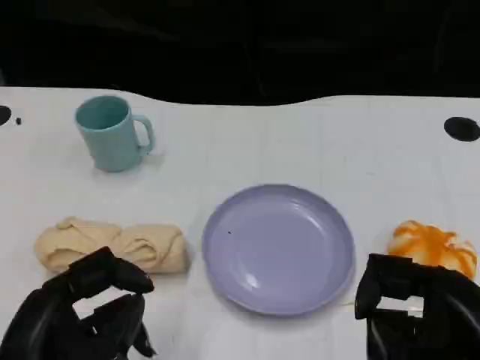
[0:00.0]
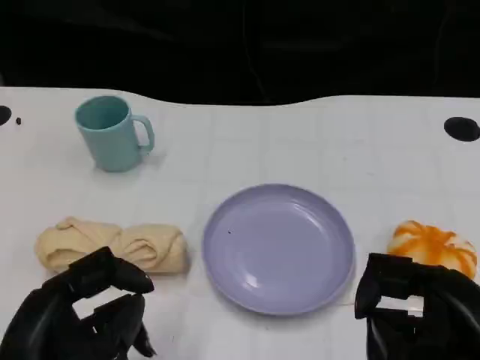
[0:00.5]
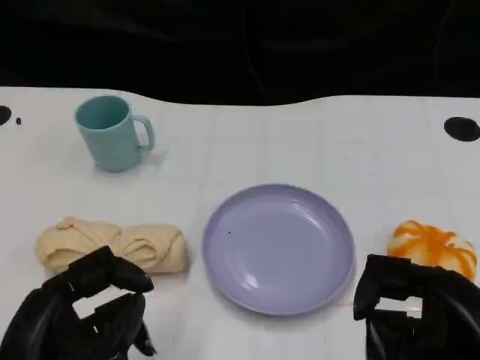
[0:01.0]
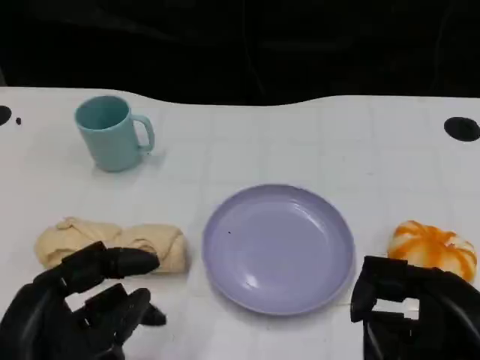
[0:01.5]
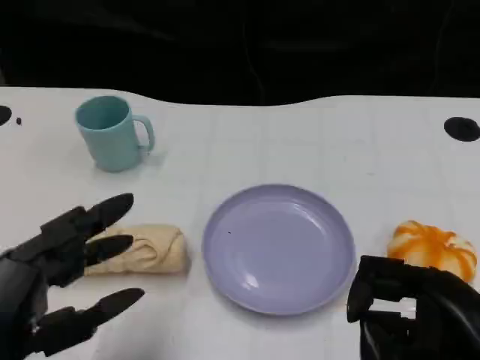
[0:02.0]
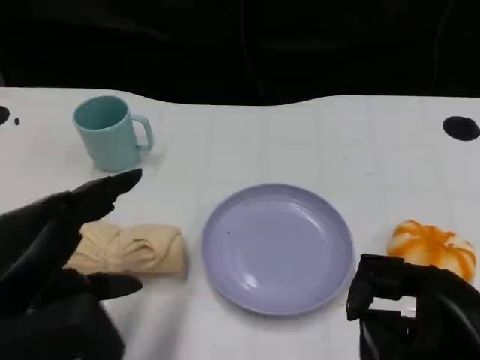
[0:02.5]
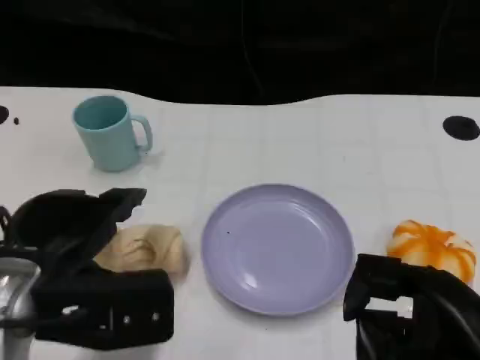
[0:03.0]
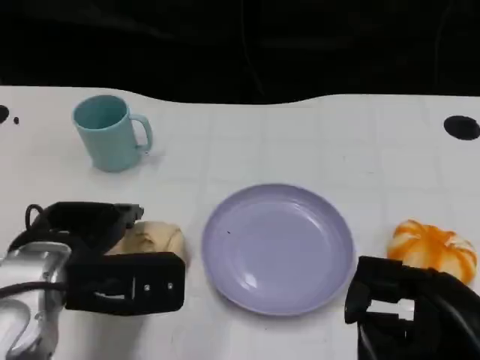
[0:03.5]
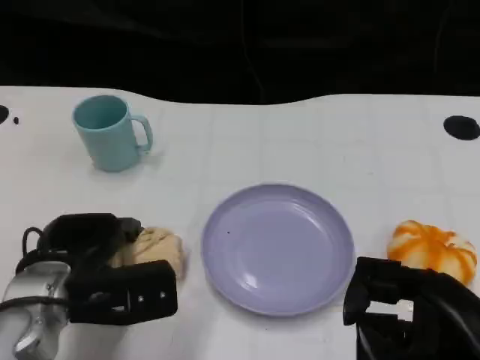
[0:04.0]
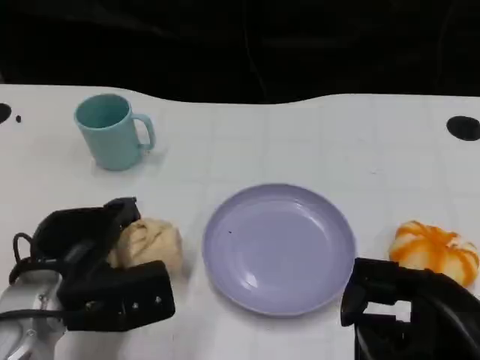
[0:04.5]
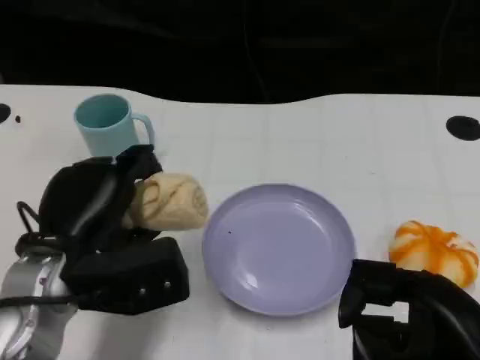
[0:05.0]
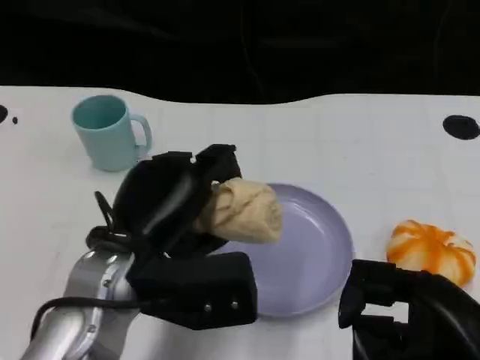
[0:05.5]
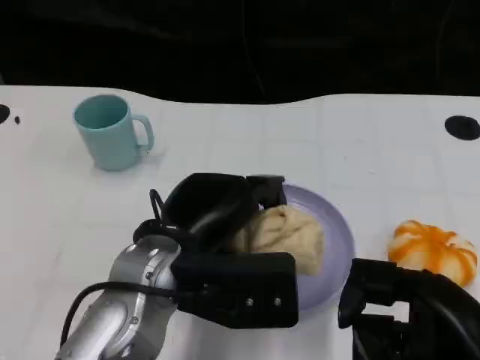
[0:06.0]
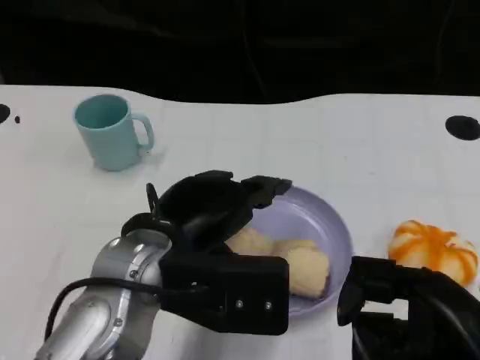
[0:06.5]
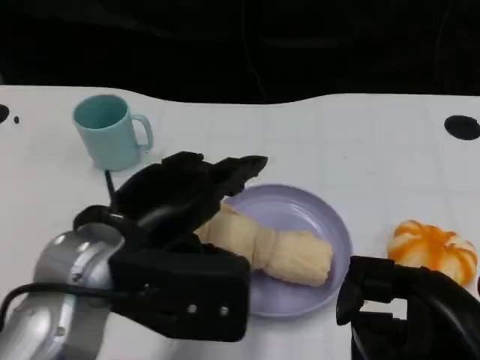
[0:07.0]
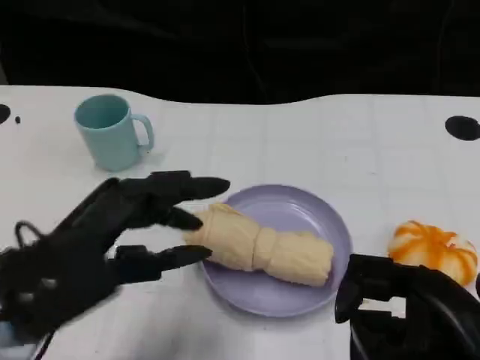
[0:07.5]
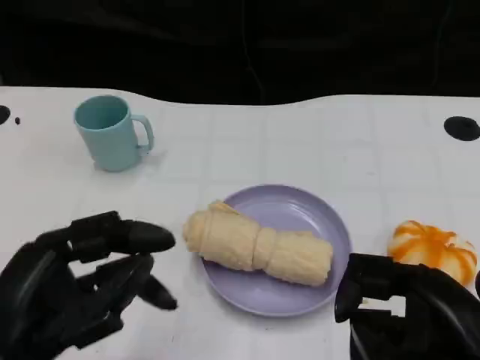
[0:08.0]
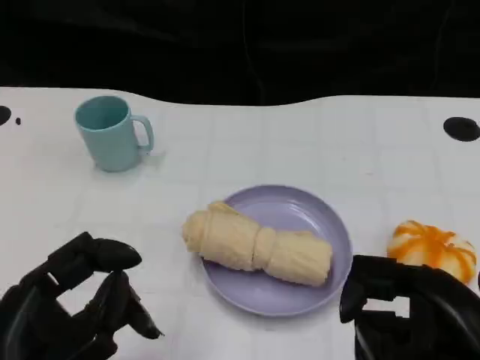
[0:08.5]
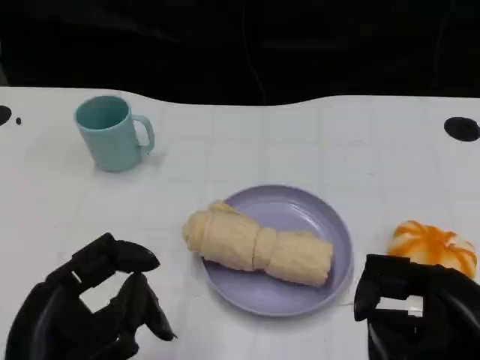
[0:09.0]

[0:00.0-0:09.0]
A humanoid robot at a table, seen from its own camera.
Task of the whole recording: Grasp the towel on the left side of the plate with the left hand and place it into the plate.
0:02.0 to 0:04.5: The left hand moves forward and downward, about 15 cm.
0:04.5 to 0:07.0: The left hand moves upward and to the right, about 10 cm.
0:07.0 to 0:09.0: The left hand heads backward, downward and to the left, covering about 15 cm.

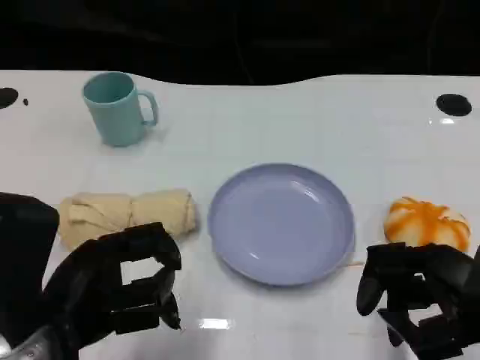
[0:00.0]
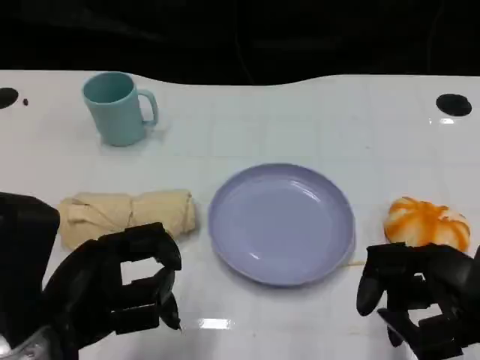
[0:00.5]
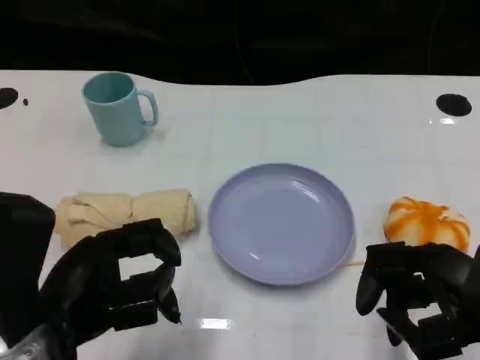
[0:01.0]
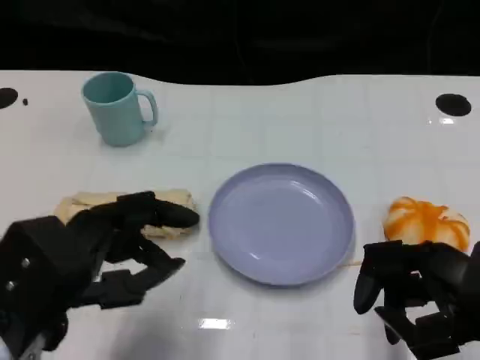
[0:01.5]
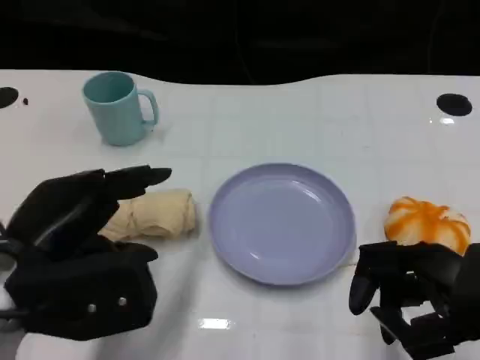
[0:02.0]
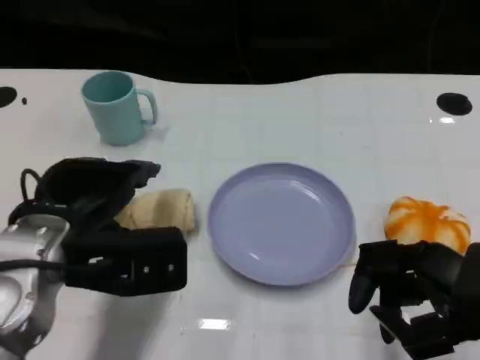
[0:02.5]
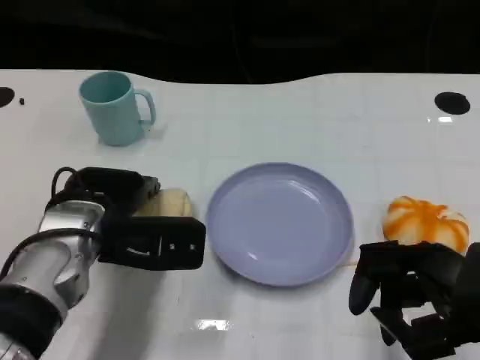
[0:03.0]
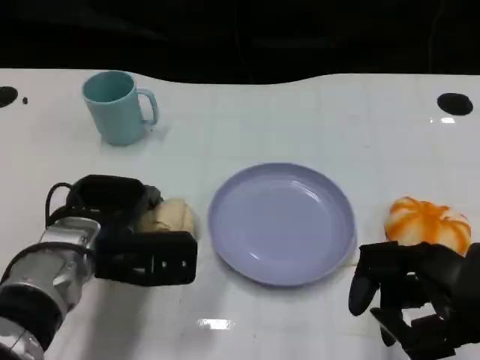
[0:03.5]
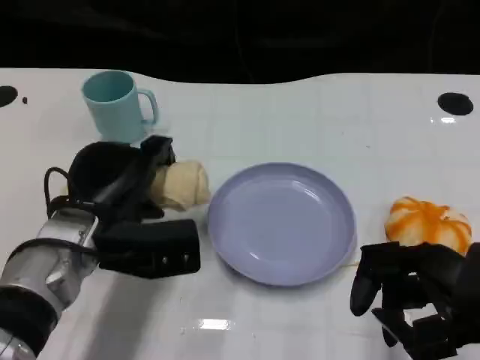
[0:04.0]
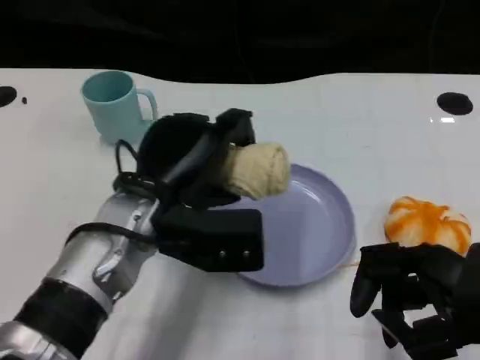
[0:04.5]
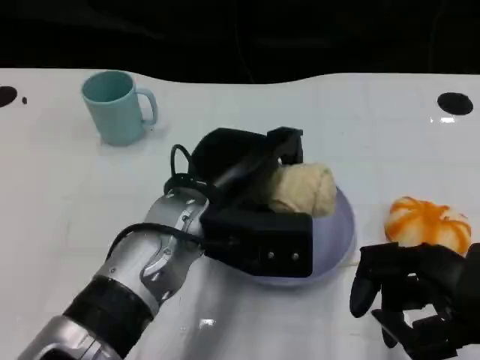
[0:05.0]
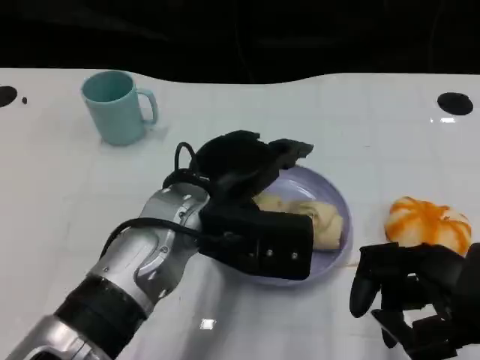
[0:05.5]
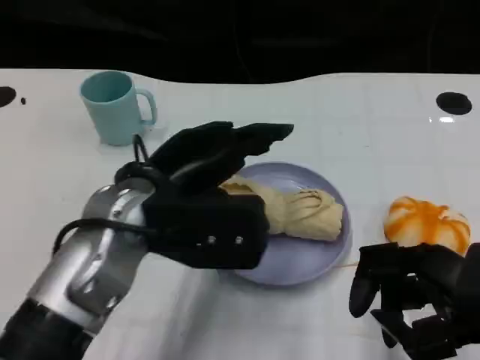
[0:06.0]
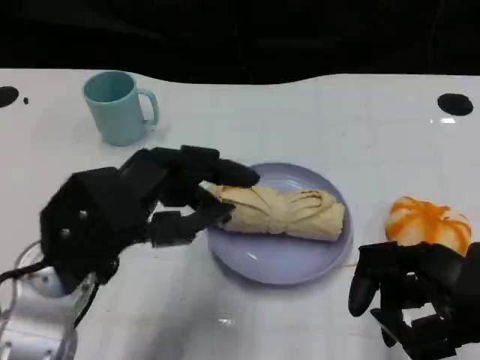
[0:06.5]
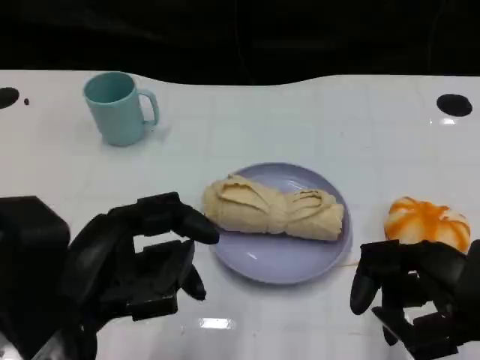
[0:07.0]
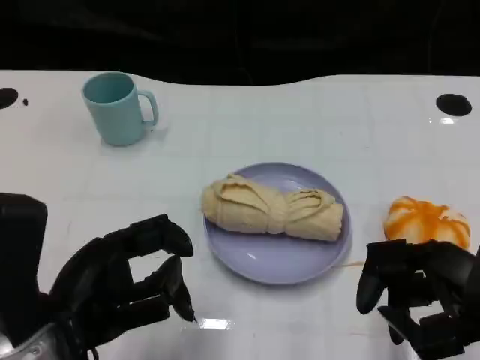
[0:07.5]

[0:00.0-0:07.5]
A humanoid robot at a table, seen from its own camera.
Task of the whole recording: Grasp the towel on the left side of the plate with the left hand and place it into the plate.
0:02.0 to 0:04.0: The left hand travels forward and downward by approximately 10 cm.
0:04.0 to 0:05.5: The left hand goes some 10 cm to the right and upward.
0:05.5 to 0:07.5: The left hand shifts approximately 15 cm to the left and backward.
